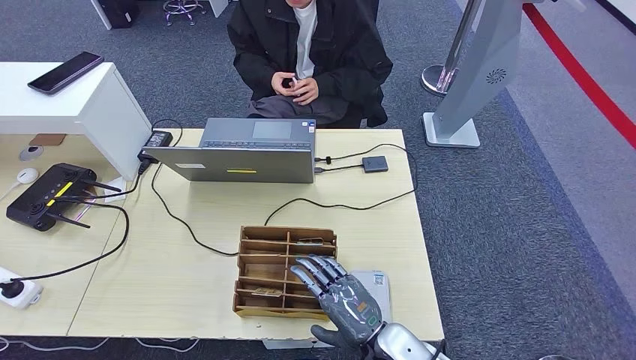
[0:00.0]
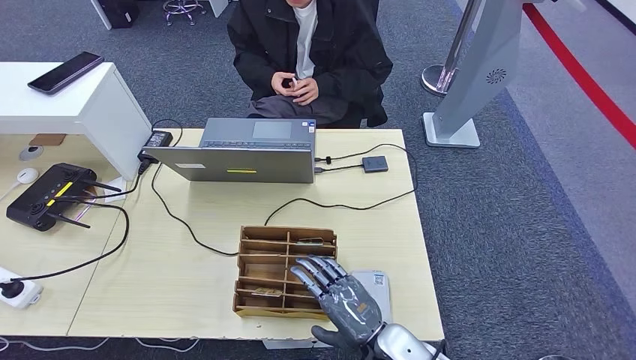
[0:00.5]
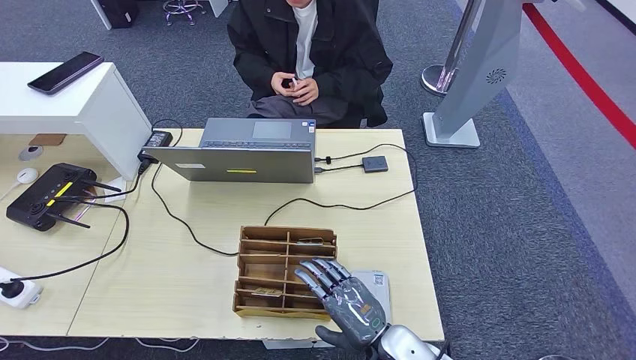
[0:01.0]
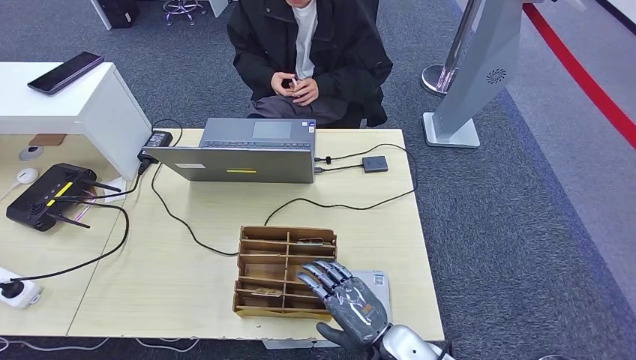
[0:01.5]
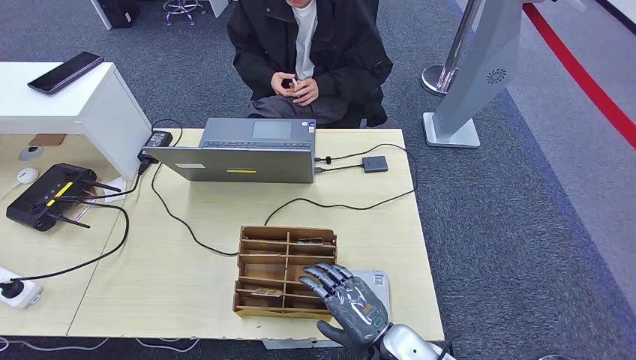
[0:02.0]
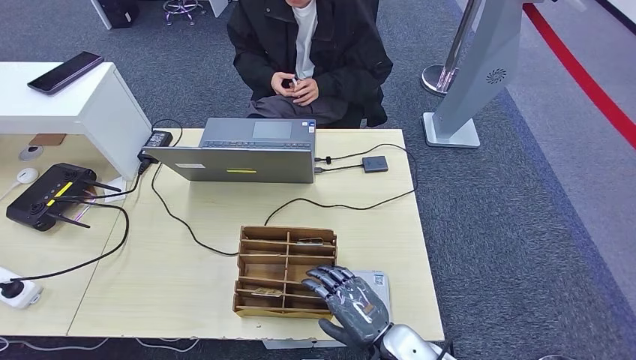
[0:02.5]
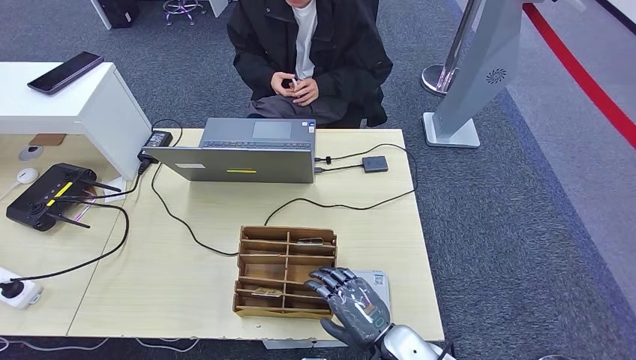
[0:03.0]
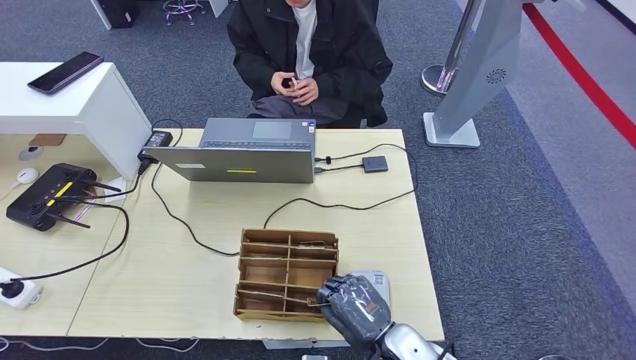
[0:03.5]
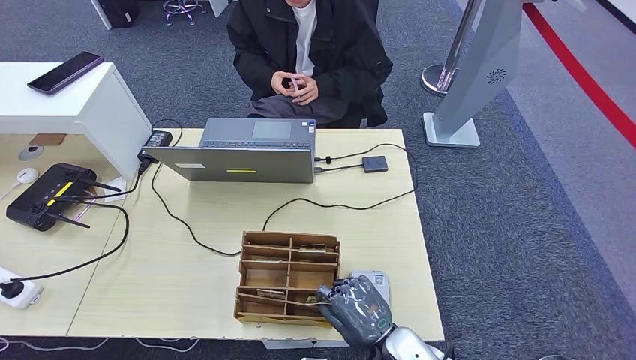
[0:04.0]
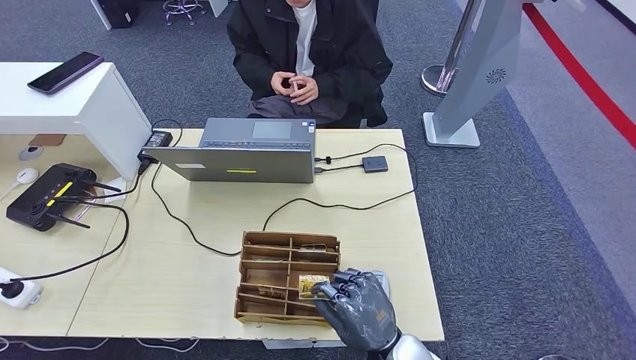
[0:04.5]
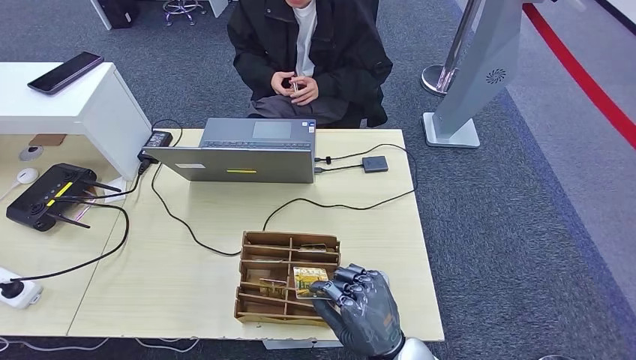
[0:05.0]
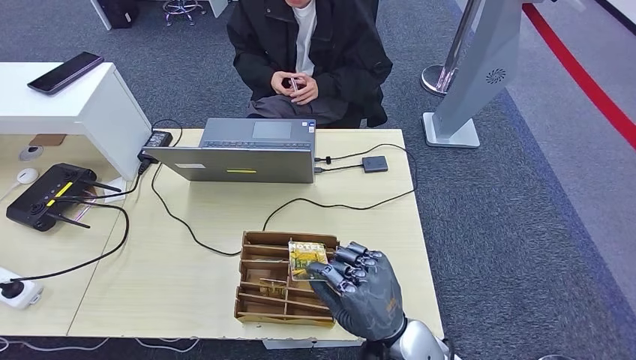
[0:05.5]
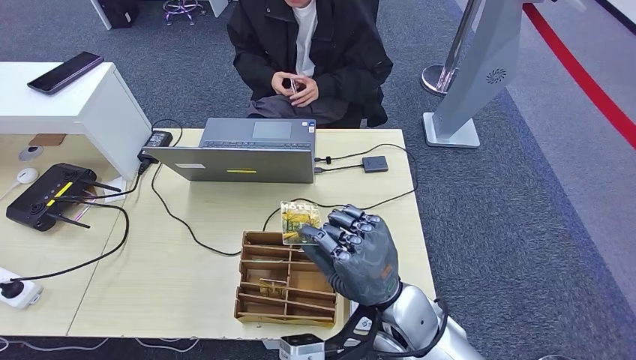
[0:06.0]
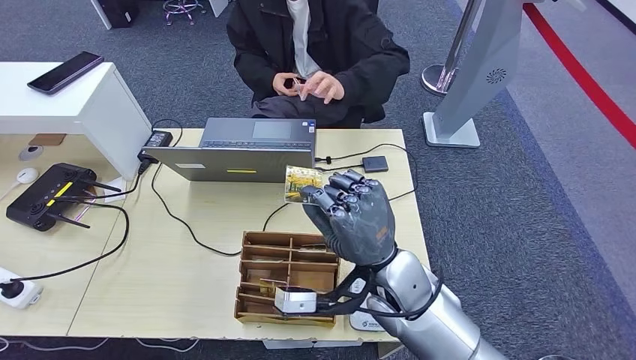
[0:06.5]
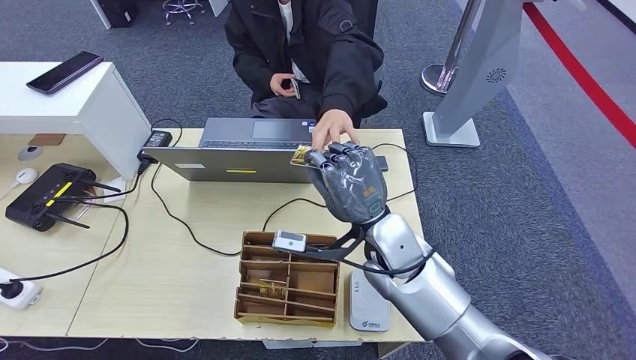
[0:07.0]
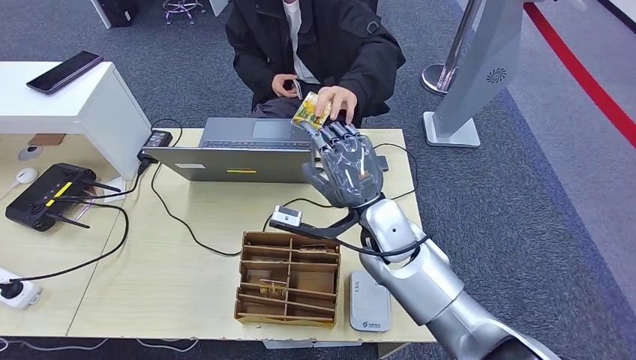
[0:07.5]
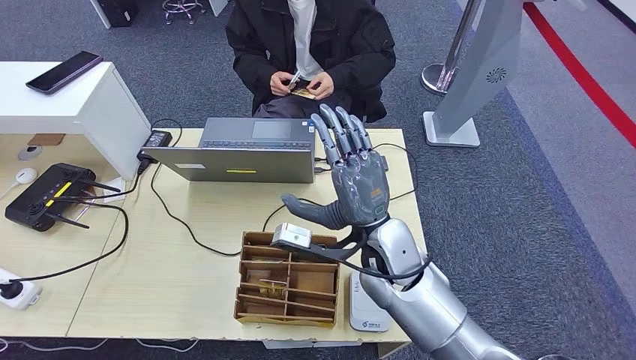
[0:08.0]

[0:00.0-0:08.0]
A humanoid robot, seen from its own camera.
Step, 0:00.0 to 0:08.0: Hand the room key to the person.
0:00.0 to 0:02.0: Both hands stay put.
0:02.0 to 0:04.0: The hands make only small movements.
0:04.0 to 0:06.0: The right hand moves upward and forward, approximately 15 cm.
0:06.0 to 0:08.0: The right hand heads forward, covering some 10 cm.
